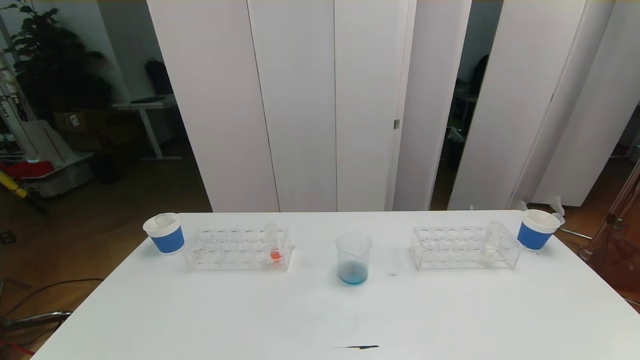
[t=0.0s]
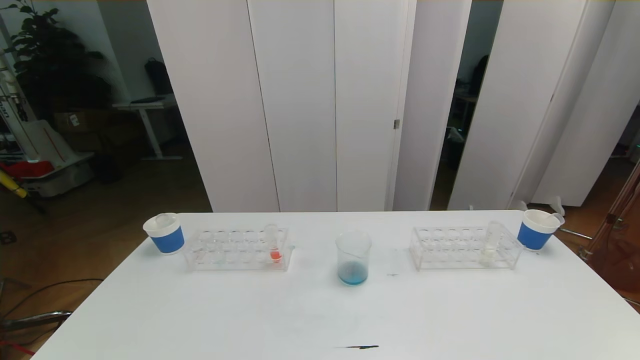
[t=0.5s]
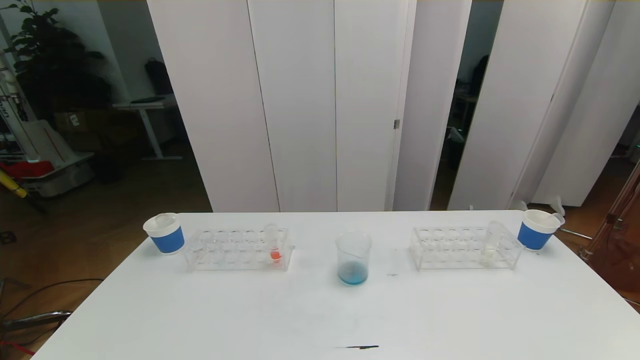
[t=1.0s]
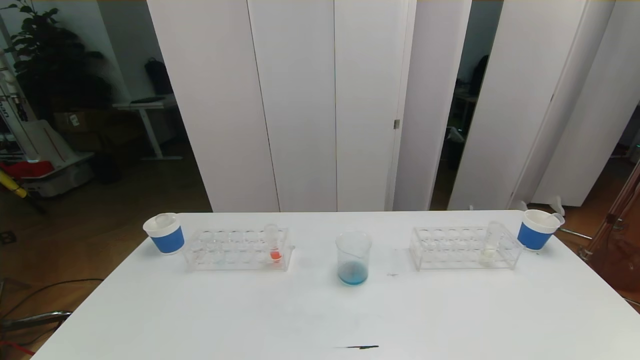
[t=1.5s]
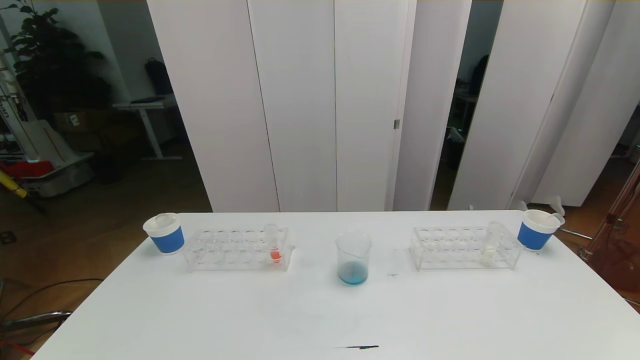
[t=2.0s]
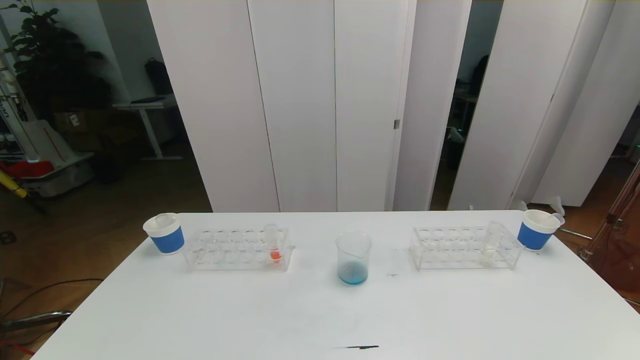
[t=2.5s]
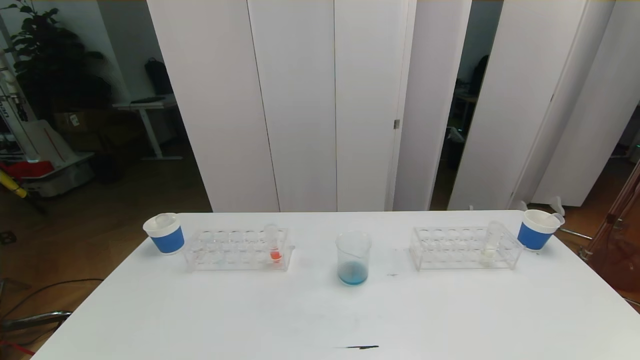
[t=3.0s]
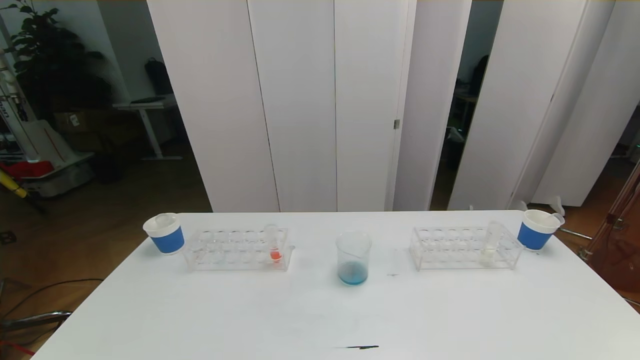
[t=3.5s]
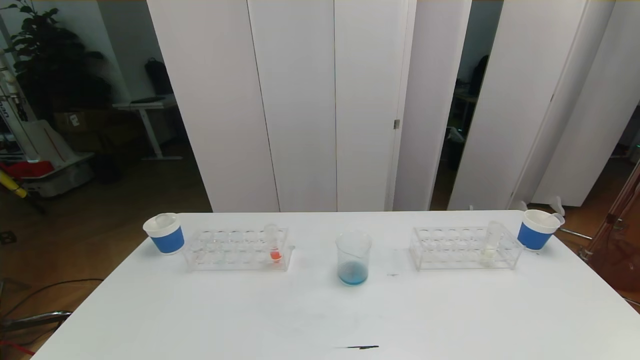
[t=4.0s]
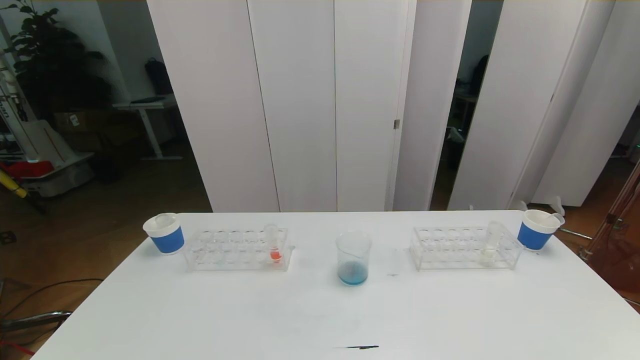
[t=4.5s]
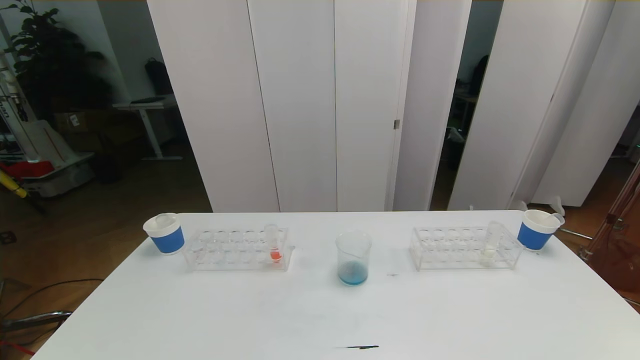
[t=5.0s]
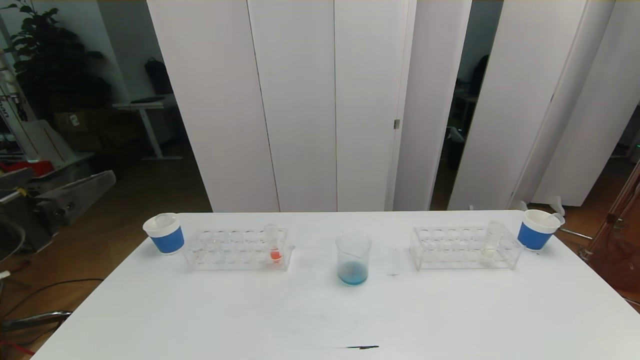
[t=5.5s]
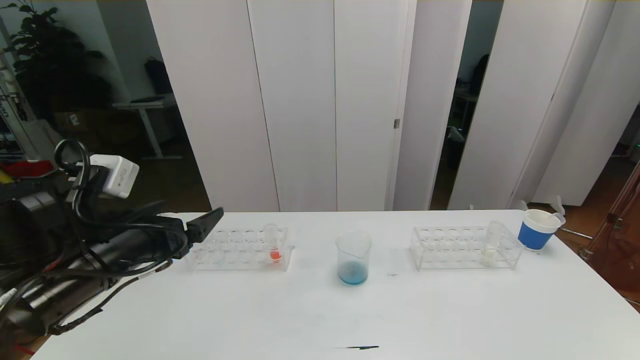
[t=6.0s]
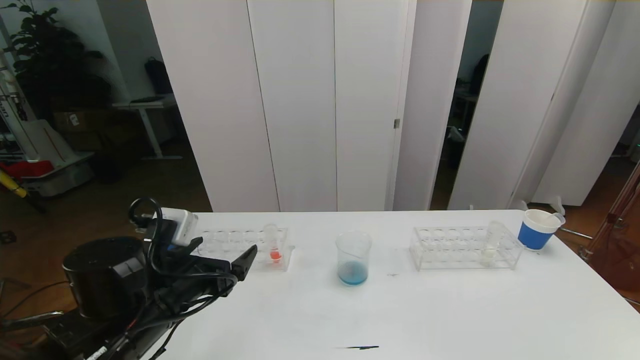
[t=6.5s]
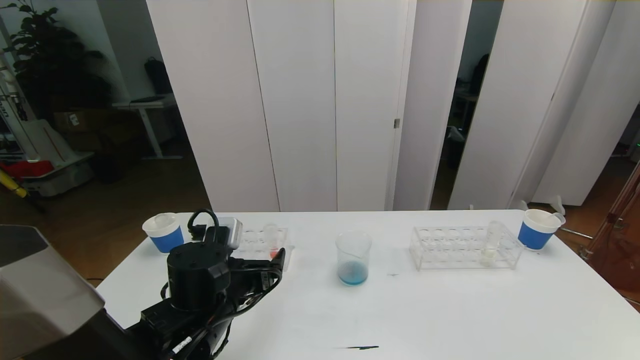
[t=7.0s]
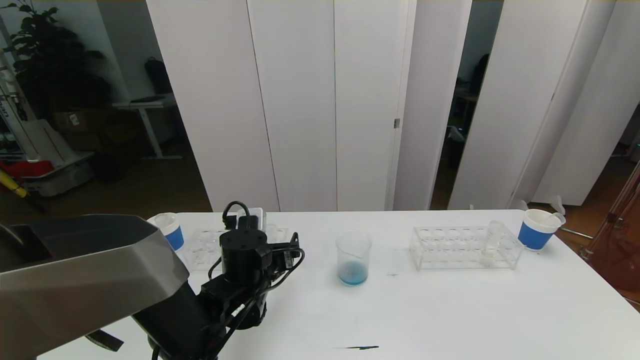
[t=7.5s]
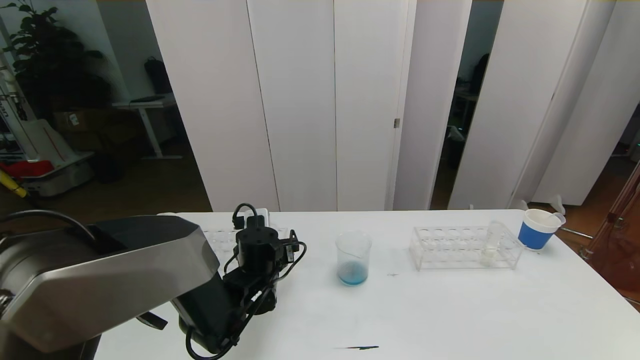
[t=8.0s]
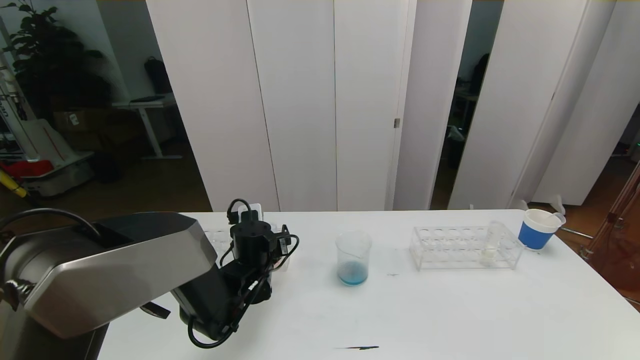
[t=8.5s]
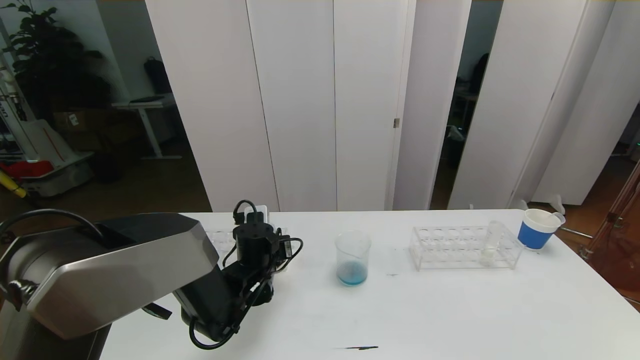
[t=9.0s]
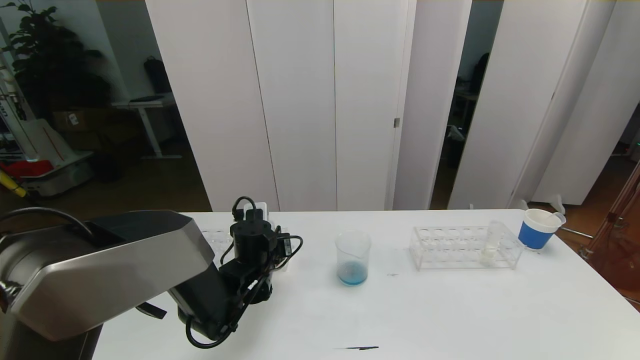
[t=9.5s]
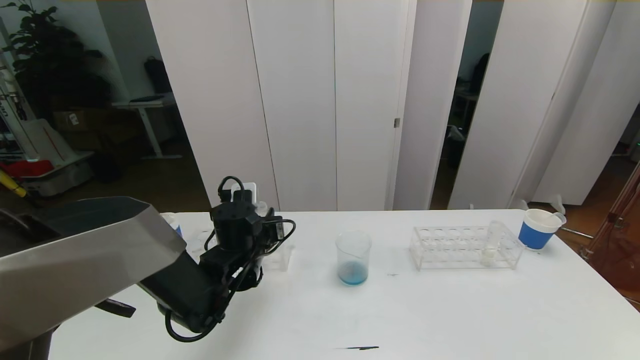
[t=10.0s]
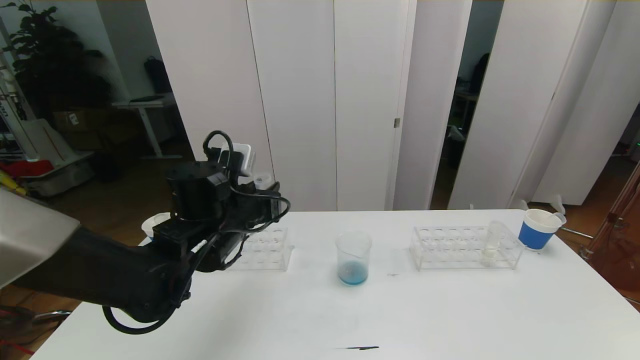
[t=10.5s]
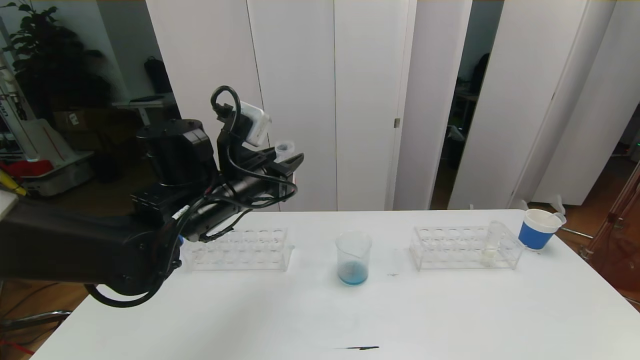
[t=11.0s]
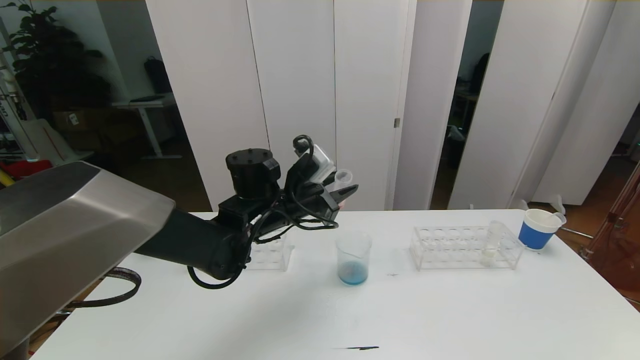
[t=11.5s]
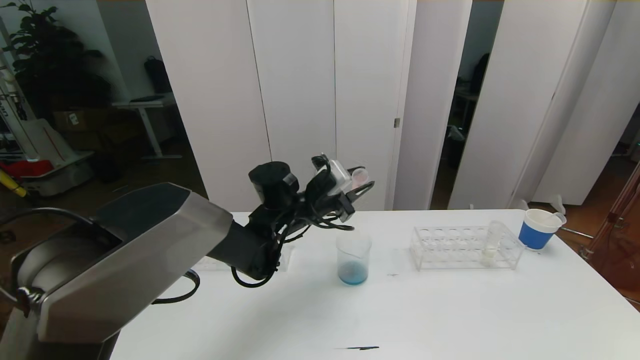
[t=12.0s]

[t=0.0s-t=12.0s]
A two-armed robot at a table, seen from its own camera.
Task of the whole recording: pick up the test tube with red pigment the test tube with blue pigment and the test tube with white pigment by grippers and pour them into the beaker.
t=2.0s to t=4.0s: Both grippers stay put.
t=4.0s to t=6.0s: The left gripper is displaced forward and upward by about 25 cm.
t=6.0s to t=8.0s: The left gripper shifts about 25 cm downward, to the right and forward.
t=8.0s to t=10.0s: The left gripper shifts by roughly 5 cm, and closes its fingers.
t=10.0s to t=12.0s: The left gripper shifts about 10 cm to the right, upward and forward.

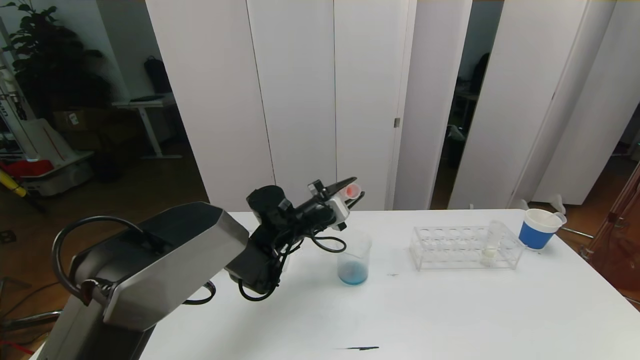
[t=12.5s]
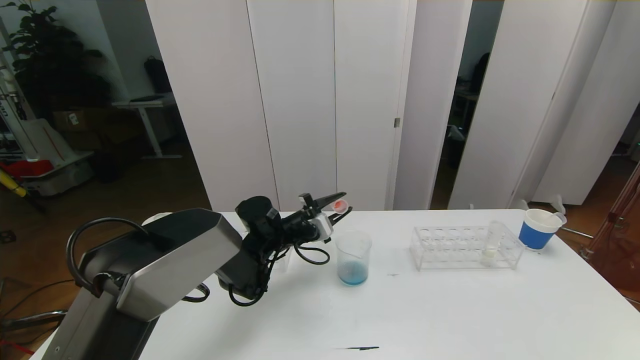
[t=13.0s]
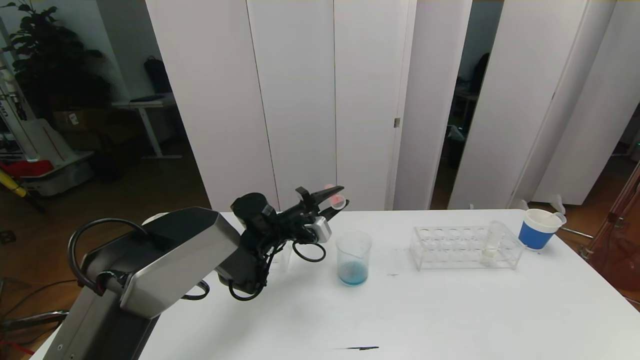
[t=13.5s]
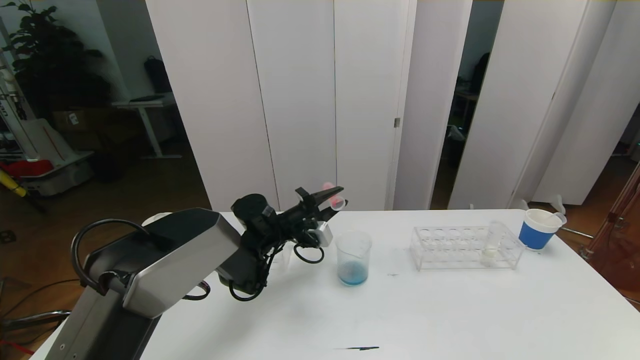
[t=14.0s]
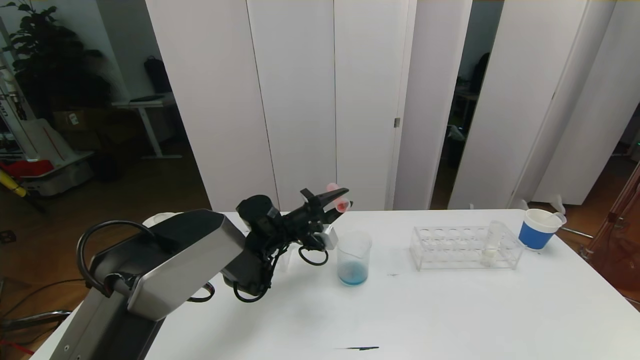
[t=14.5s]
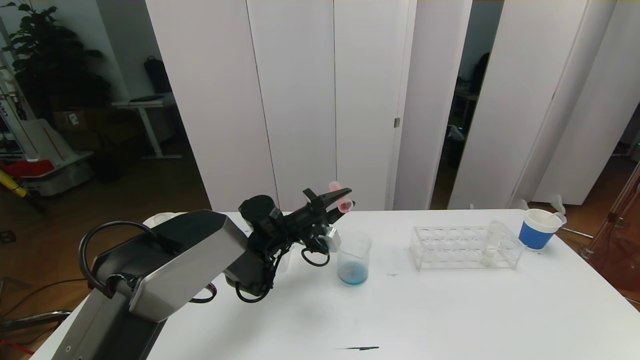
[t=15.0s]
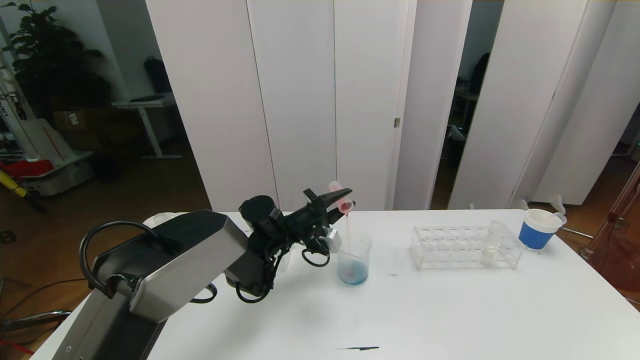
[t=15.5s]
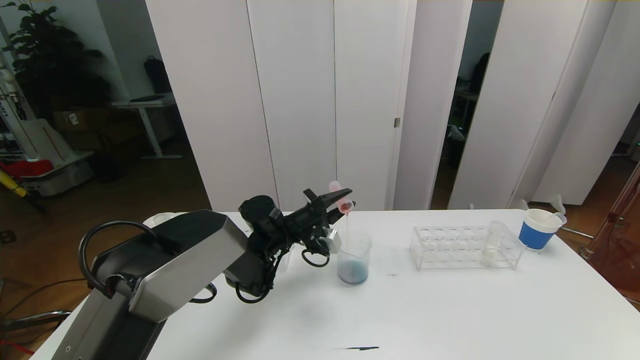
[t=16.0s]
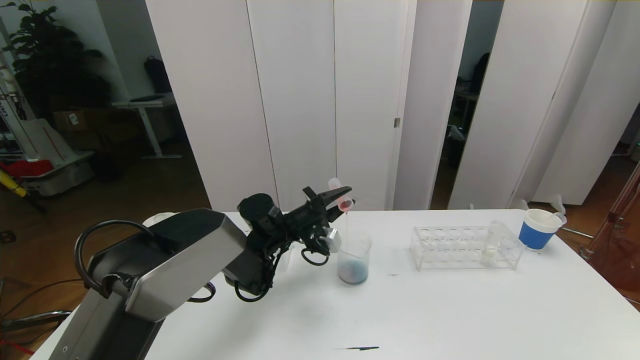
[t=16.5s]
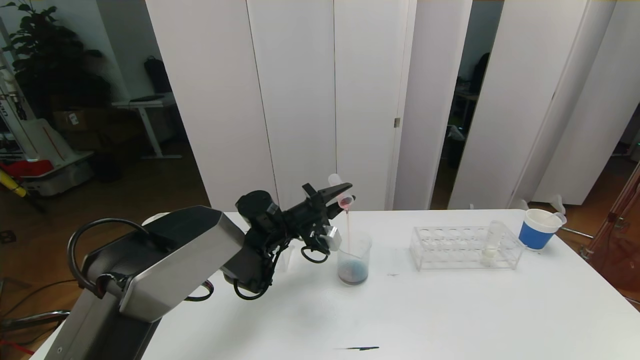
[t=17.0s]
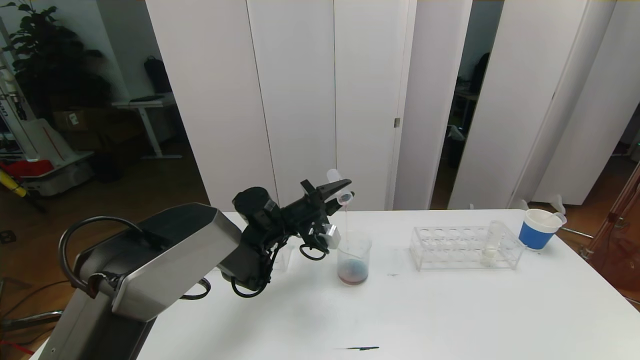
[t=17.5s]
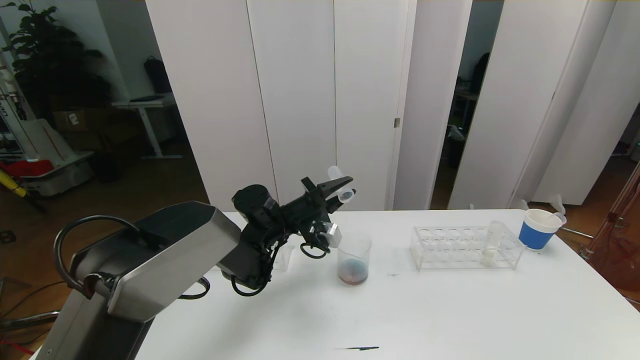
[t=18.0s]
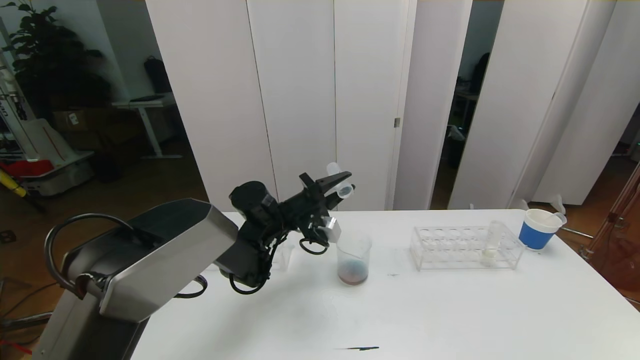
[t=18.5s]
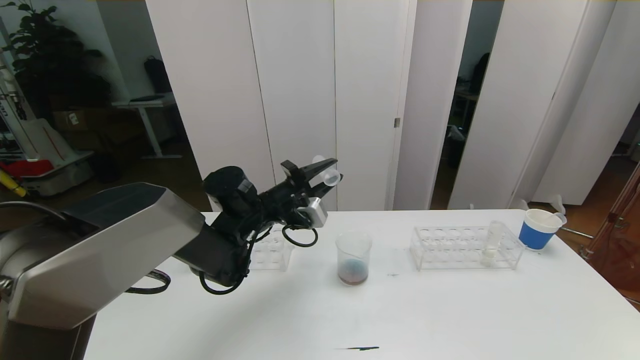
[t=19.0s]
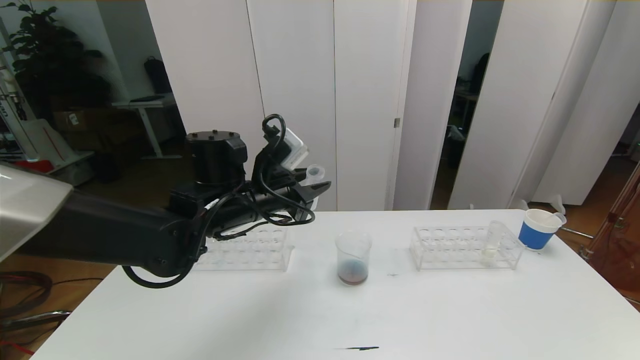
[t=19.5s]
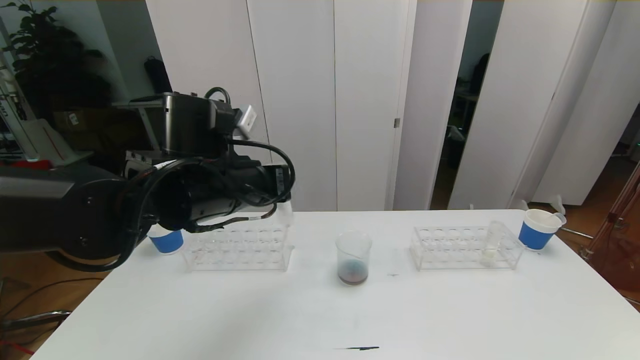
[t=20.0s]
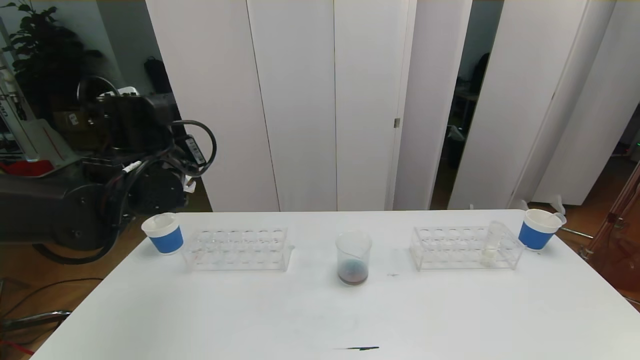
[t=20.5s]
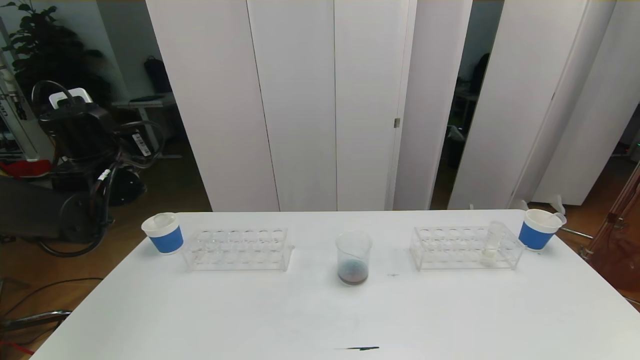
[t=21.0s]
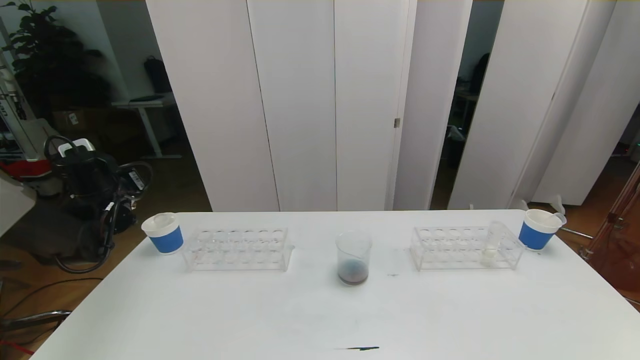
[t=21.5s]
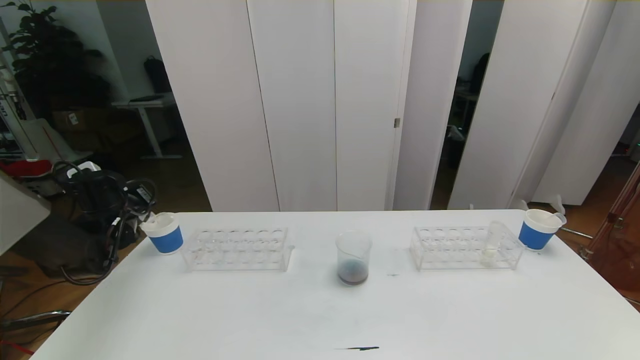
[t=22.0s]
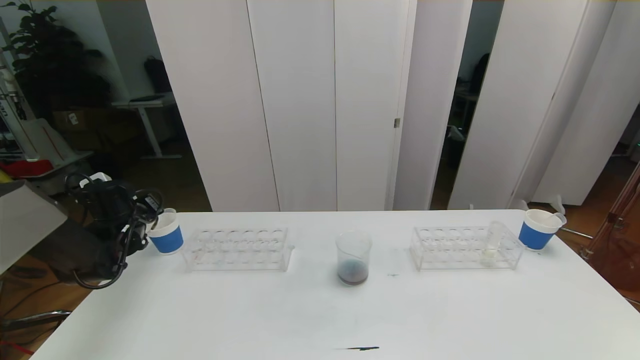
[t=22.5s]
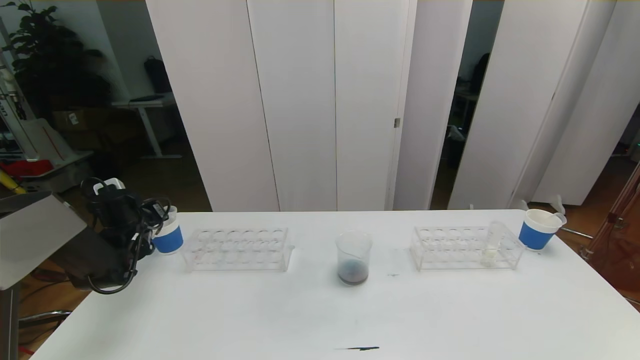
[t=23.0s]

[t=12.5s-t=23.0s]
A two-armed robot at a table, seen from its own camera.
Task of the whole recording: pick up the test tube with red pigment the test tube with blue pigment and the test tube with white pigment by grippers and pour them into the beaker.
t=14.5s to t=16.5s: The grippers make only small movements.
t=16.5s to t=19.0s: The left gripper heads upward, covering about 5 cm.
t=19.0s to t=21.0s: The left gripper goes about 20 cm to the left and upward.
t=21.0s to t=23.0s: The left gripper heads downward and to the left, covering some 20 cm.
